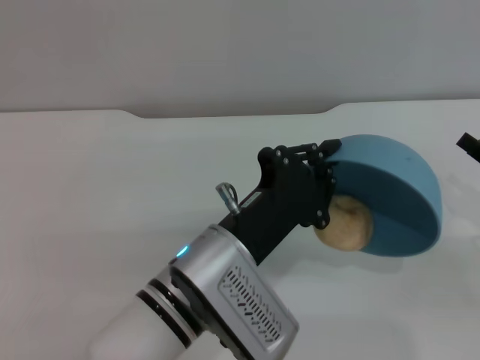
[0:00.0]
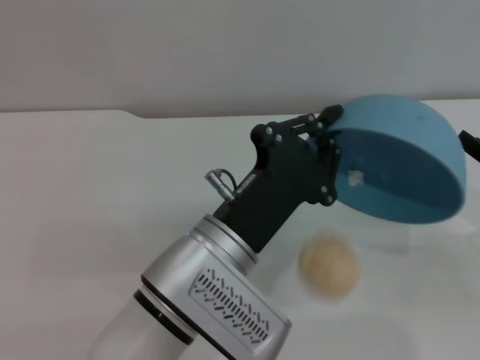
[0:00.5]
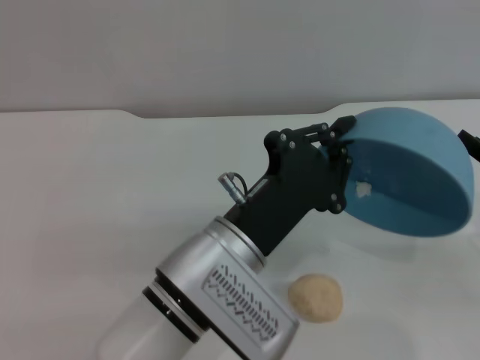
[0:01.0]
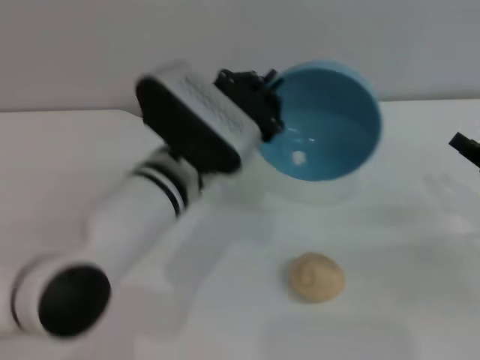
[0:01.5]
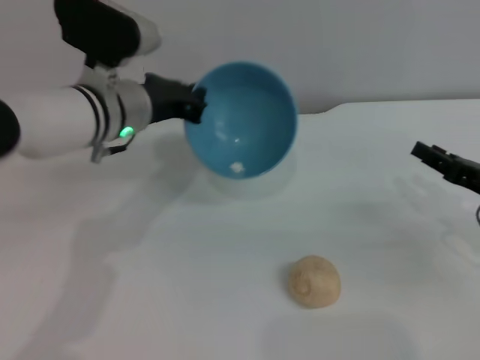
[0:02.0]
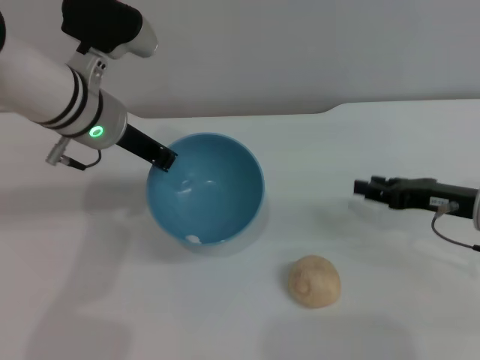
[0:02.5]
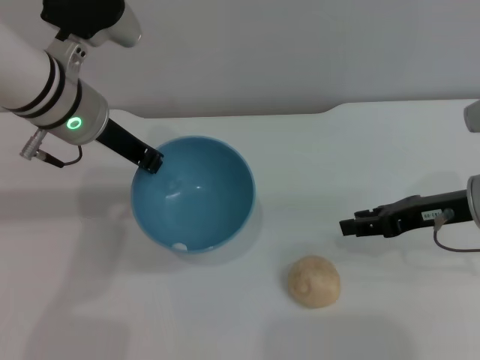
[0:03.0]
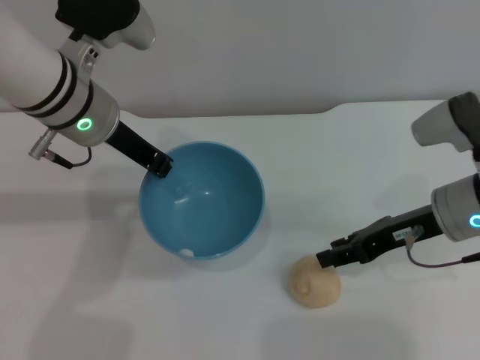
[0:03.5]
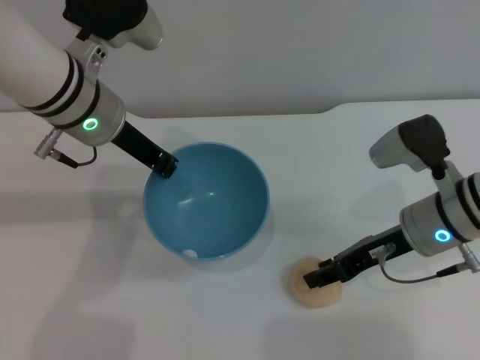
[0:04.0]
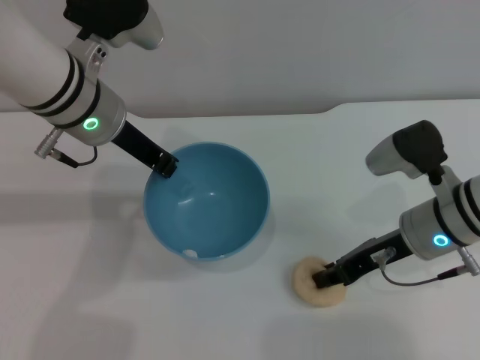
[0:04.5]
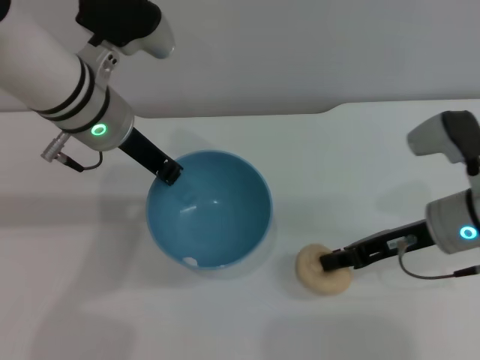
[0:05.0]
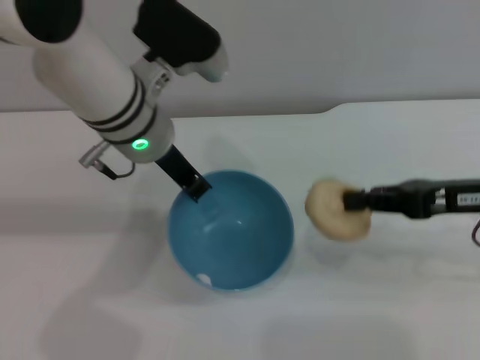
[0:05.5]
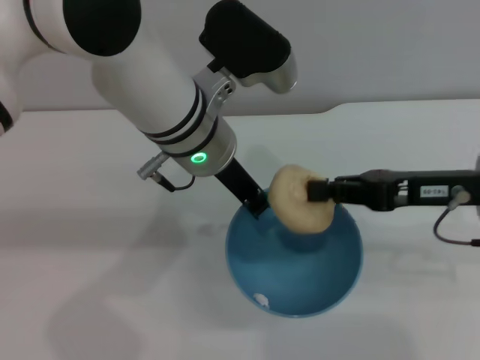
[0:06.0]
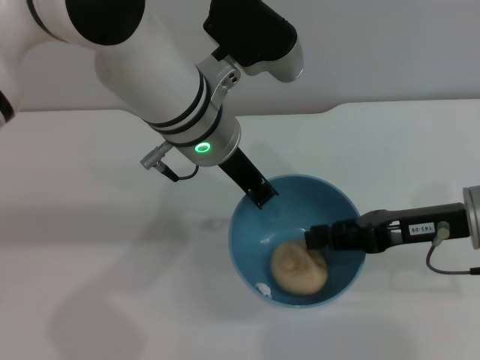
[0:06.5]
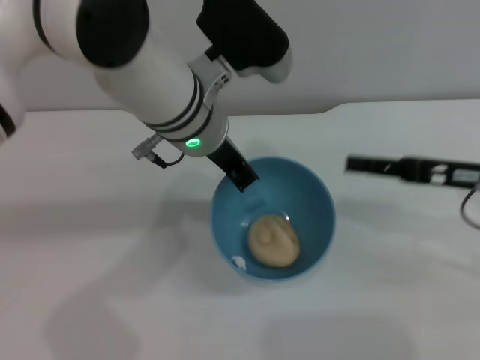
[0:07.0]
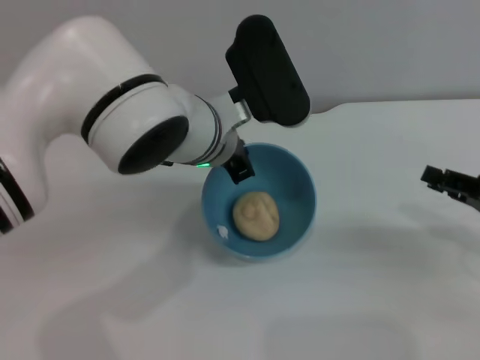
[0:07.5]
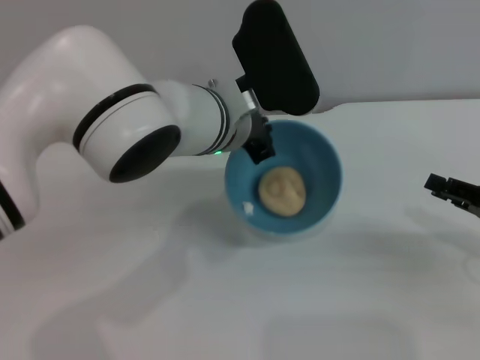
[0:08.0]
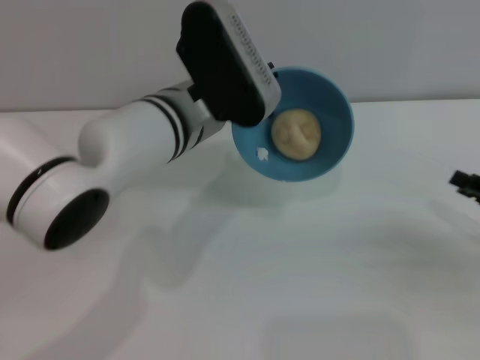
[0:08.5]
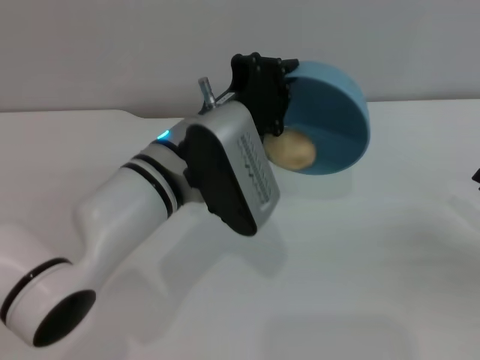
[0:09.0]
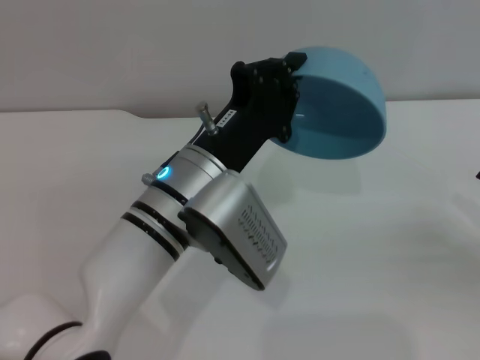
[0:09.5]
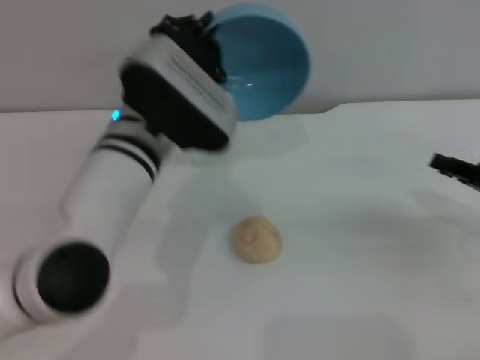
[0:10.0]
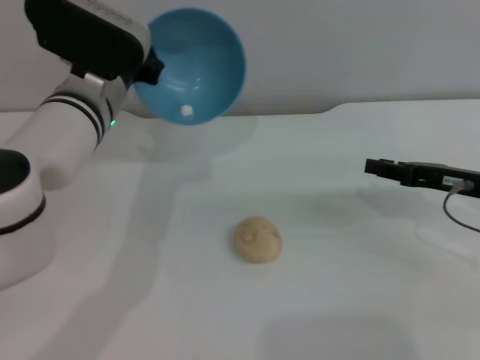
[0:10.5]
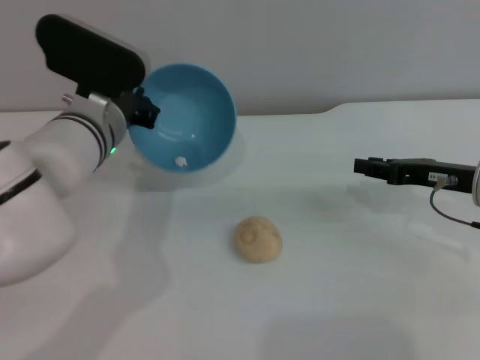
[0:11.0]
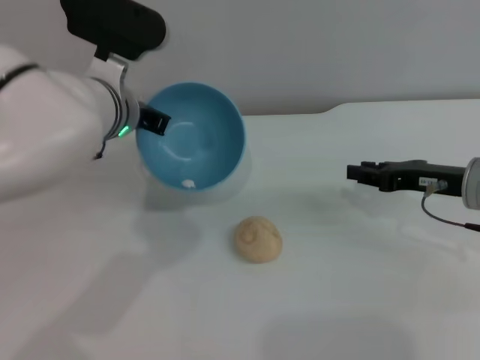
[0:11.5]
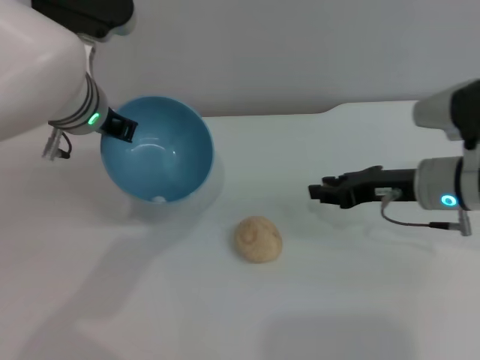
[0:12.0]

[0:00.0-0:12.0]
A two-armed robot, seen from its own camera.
Task of the whole recording: put the egg yolk pastry into the blue bowl and pour it out repeatedly.
Step, 0:01.5 to 0:05.0: Pick up the egg yolk pastry with the right gripper.
Step, 0:05.5 to 0:06.5: Place the egg yolk pastry into the bowl.
Step, 0:07.0 to 0:09.5: Pour the egg yolk pastry out of bowl.
0:00.0 to 0:02.0: The left gripper travels forward and to the left by about 20 cm.
0:02.0 to 0:04.0: The right gripper is displaced to the left by about 10 cm. The left gripper heads upward, covering approximately 5 cm.
0:04.0 to 0:06.0: The right gripper travels upward by roughly 5 cm, and closes its fingers. The left gripper goes some 10 cm to the right.
0:06.0 to 0:08.0: The right gripper goes some 15 cm to the right and downward, and opens up.
0:08.0 to 0:10.0: The left gripper heads to the left, covering about 5 cm, and goes backward and returns, approximately 10 cm each way.
0:10.0 to 0:12.0: The left gripper moves to the left and forward, approximately 10 cm; the right gripper heads to the left and forward, covering approximately 15 cm.

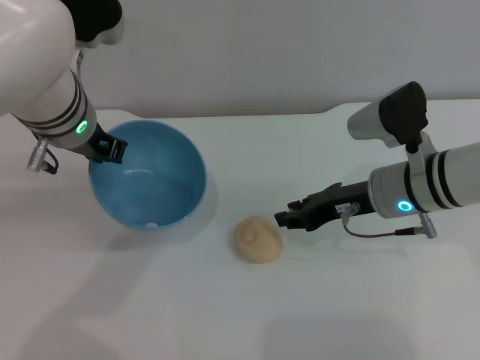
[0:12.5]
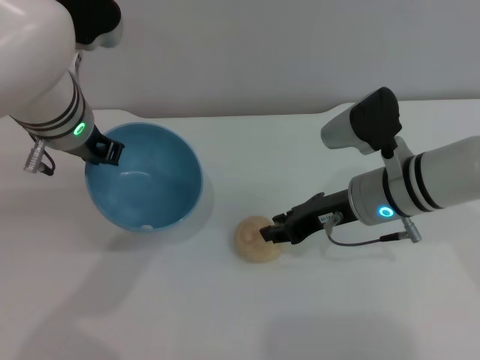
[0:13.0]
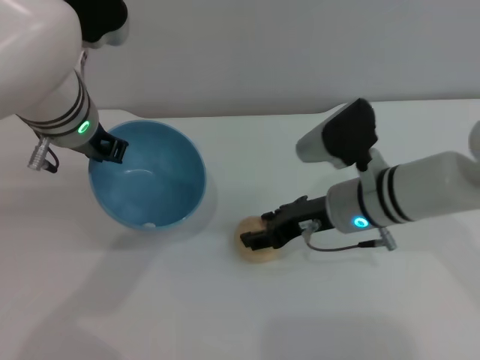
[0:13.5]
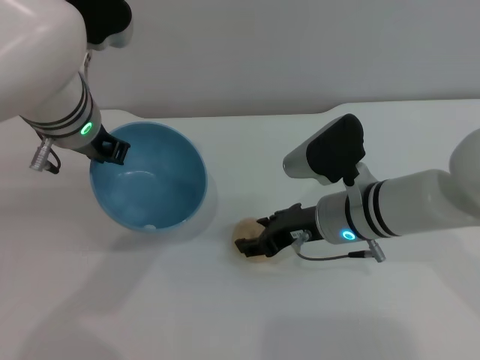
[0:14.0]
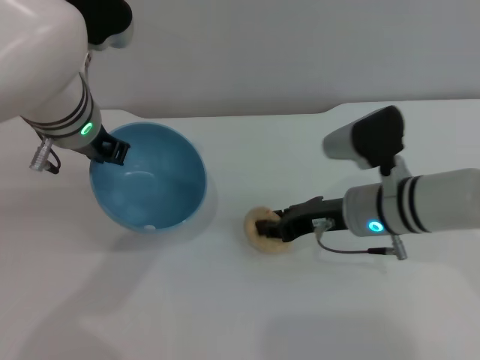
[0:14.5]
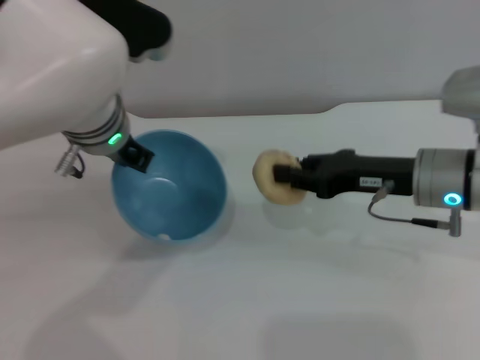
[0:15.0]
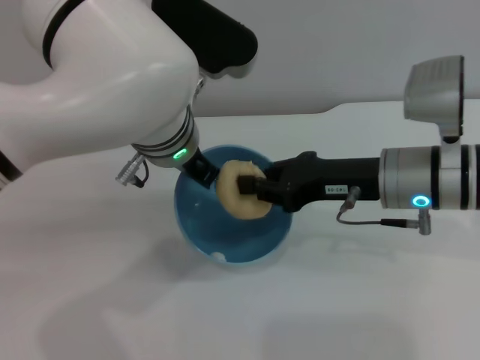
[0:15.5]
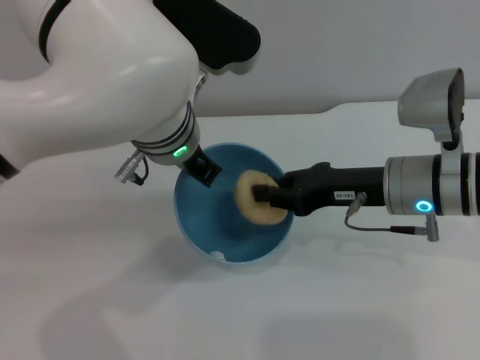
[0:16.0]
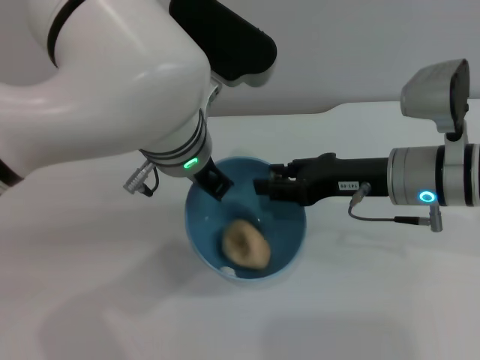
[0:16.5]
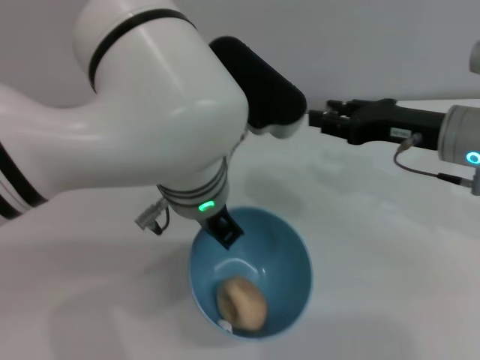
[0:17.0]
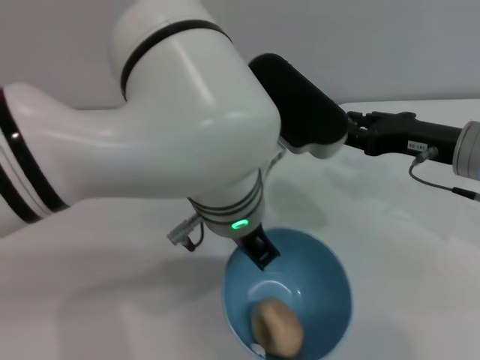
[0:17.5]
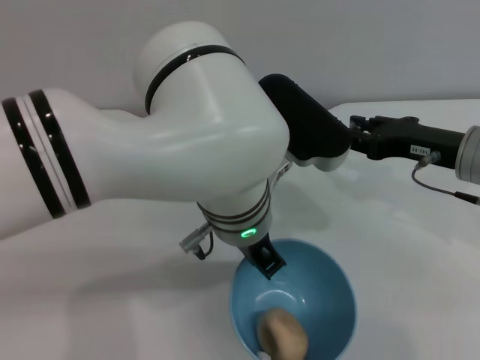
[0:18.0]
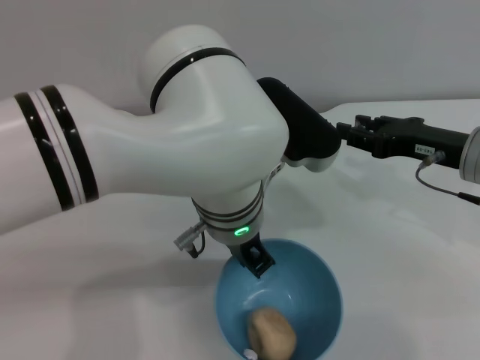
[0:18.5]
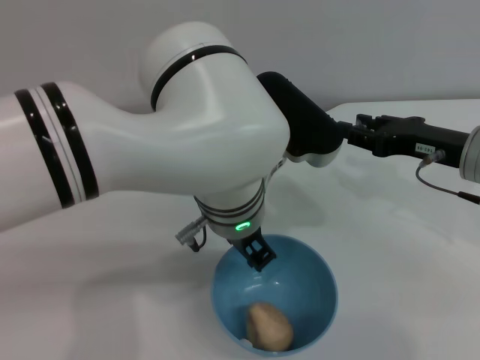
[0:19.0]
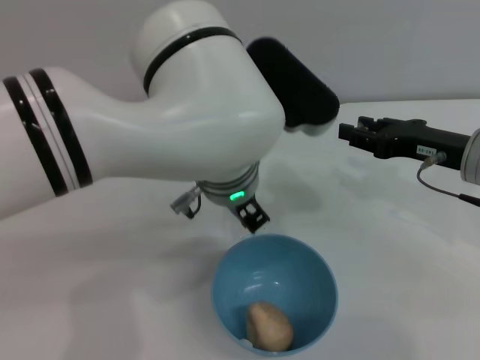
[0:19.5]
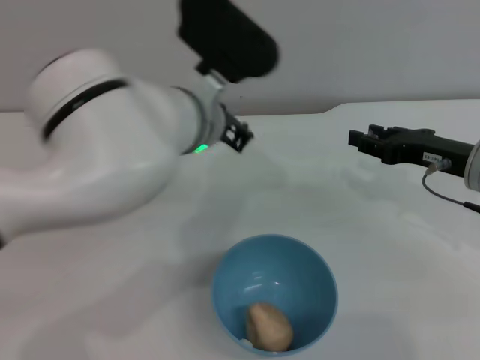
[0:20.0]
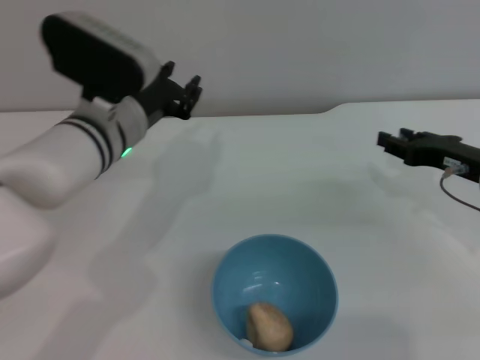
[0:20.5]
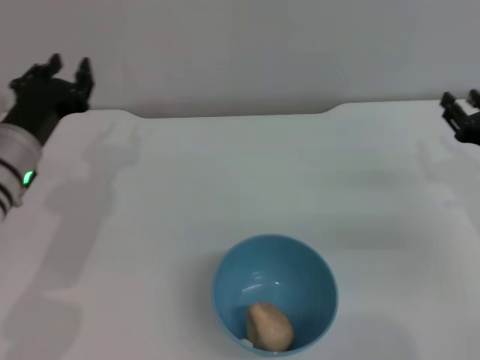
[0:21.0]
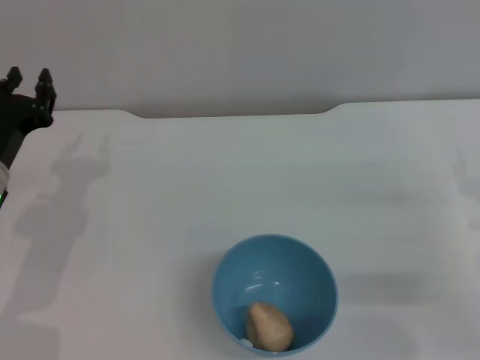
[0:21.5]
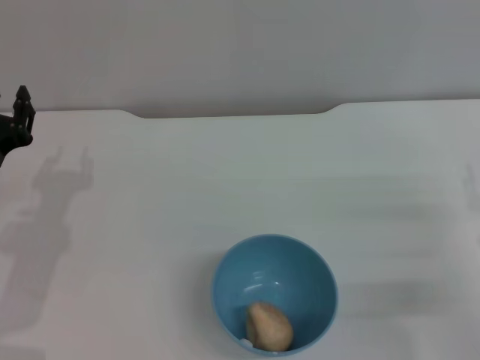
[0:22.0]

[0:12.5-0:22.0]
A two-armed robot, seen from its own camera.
Task of the whole recording: put the egg yolk pastry into the blue bowl and pour it out repeatedly.
Step, 0:12.5 to 0:15.0: Pick up the egg yolk pastry with the right gripper.
Step, 0:15.5 to 0:16.5: Place the egg yolk pastry into the bowl.
Step, 0:17.0 to 0:19.5: Place the bowl on the table.
0:14.5 to 0:16.5: The right gripper is displaced upward by approximately 5 cm, and closes, then opens again. Meanwhile the left gripper is displaced to the right by roughly 10 cm.
0:16.5 to 0:18.0: The right gripper is displaced to the right by roughly 5 cm, while the left gripper shifts by approximately 5 cm.
0:18.0 to 0:20.0: The left gripper is displaced forward by approximately 5 cm, and opens.
0:20.0 to 0:22.0: The right gripper goes roughly 10 cm backward, downward and to the right; the left gripper moves to the left and downward, some 25 cm.
